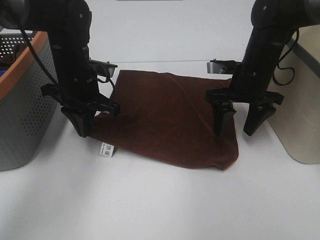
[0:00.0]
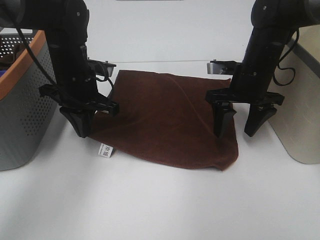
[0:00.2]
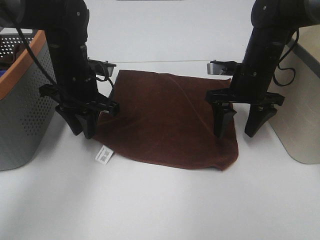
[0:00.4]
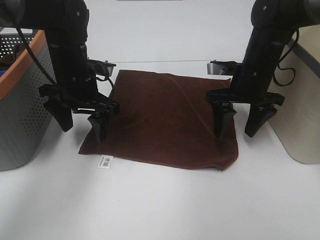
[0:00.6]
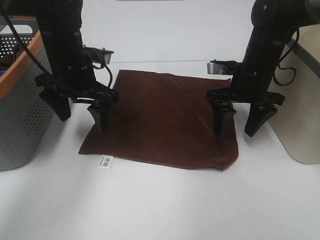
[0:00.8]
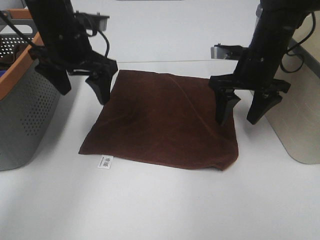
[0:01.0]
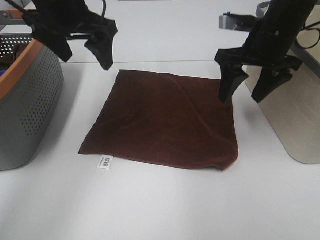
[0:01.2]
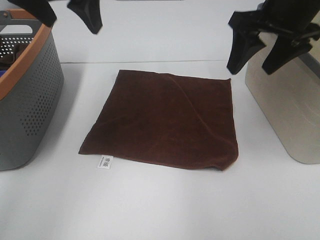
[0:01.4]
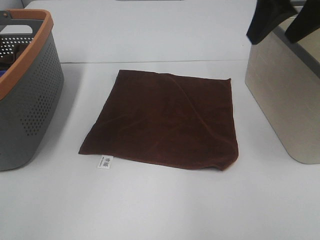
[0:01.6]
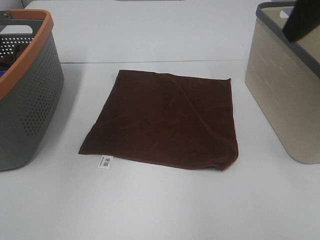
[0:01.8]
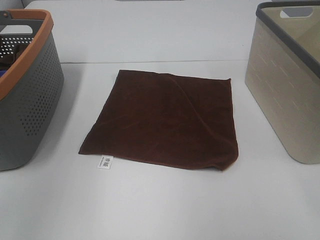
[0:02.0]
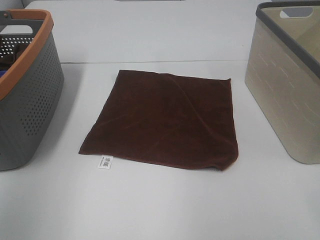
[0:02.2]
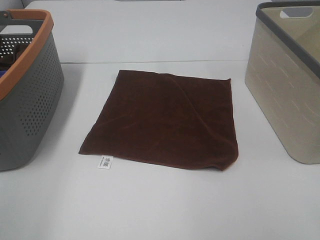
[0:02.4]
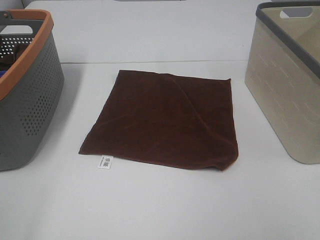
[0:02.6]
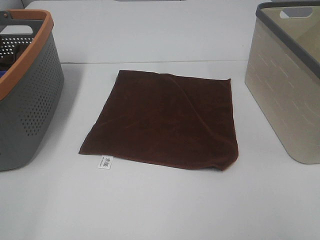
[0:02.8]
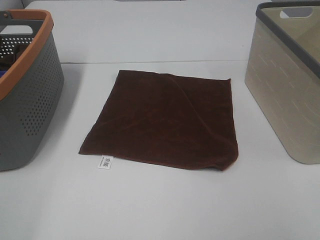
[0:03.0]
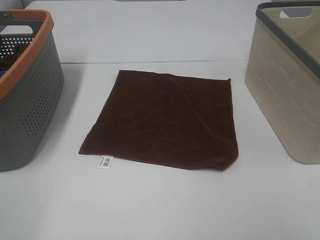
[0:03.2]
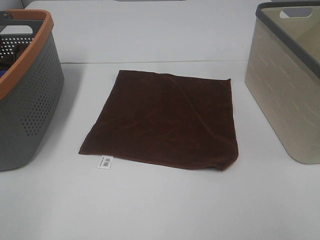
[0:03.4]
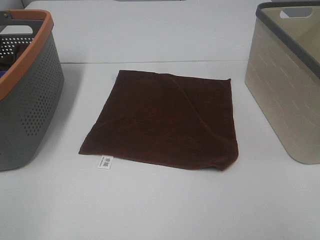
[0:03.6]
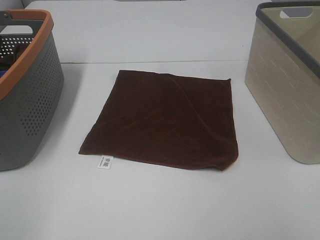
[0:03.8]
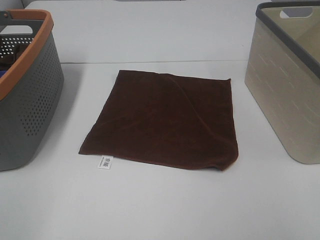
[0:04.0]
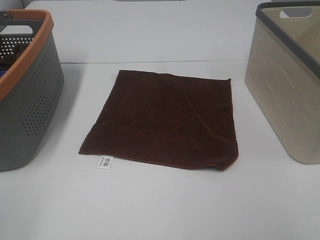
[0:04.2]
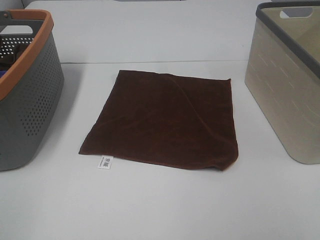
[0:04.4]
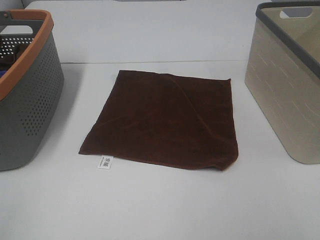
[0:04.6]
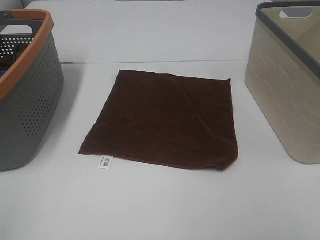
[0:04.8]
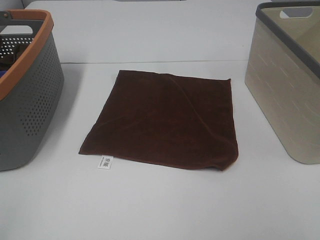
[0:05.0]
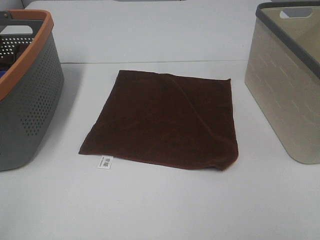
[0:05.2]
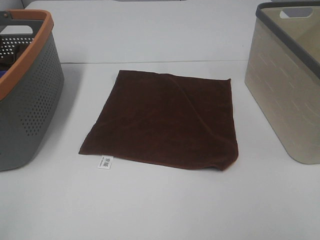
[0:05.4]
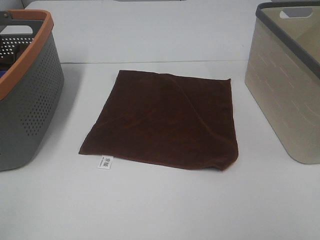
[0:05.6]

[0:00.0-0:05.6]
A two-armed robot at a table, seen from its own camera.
Task of the whole recording: Remove the towel and place it.
0:00.0 to 0:01.4: The grippers both shift upward by roughly 20 cm. The left gripper opens up.
0:01.4 to 0:02.8: The left gripper travels backward and to the left by approximately 35 cm. Meanwhile the right gripper goes approximately 30 cm backward.
